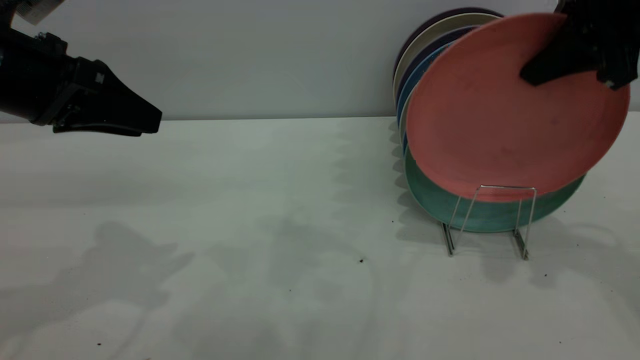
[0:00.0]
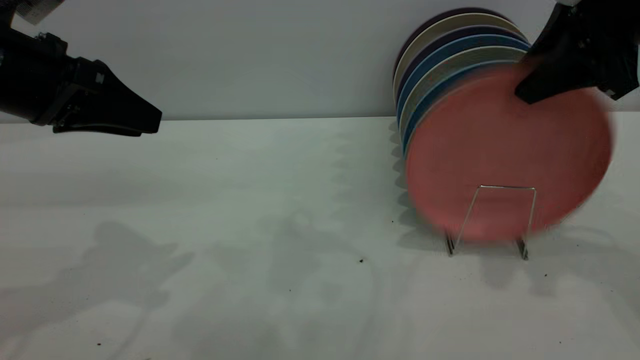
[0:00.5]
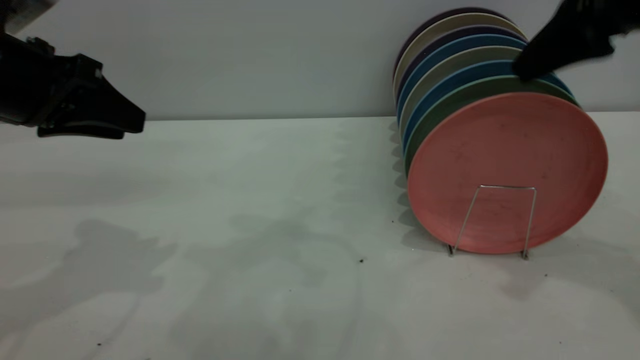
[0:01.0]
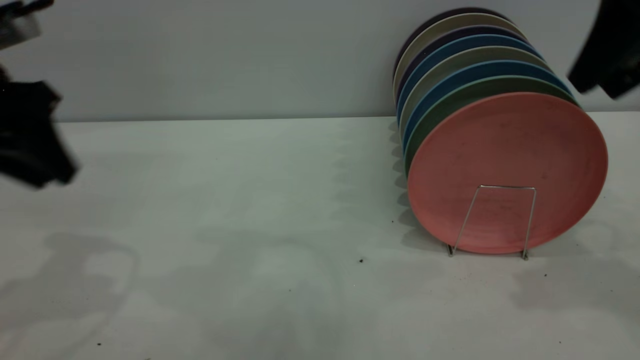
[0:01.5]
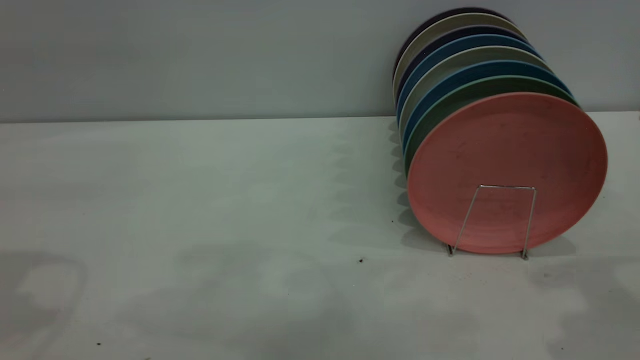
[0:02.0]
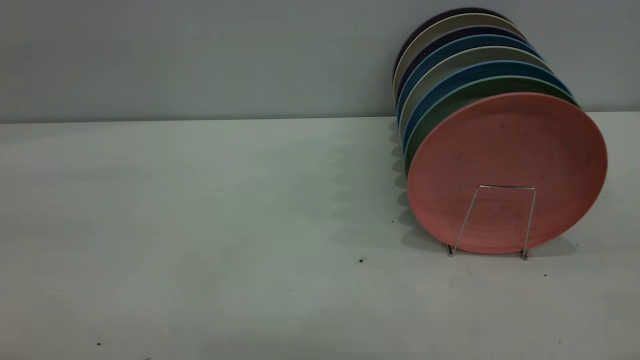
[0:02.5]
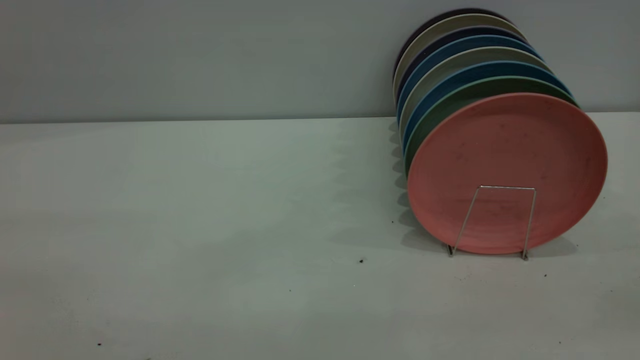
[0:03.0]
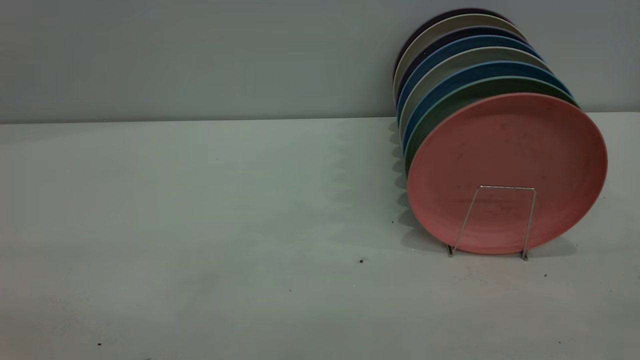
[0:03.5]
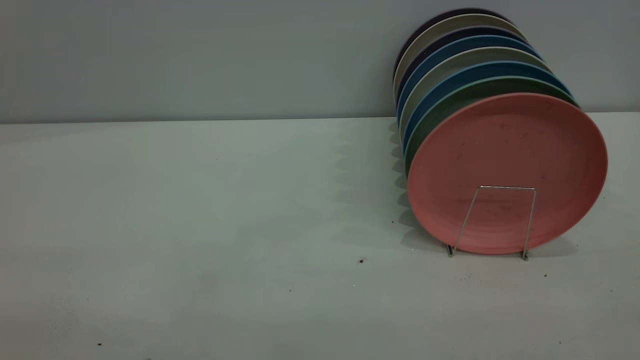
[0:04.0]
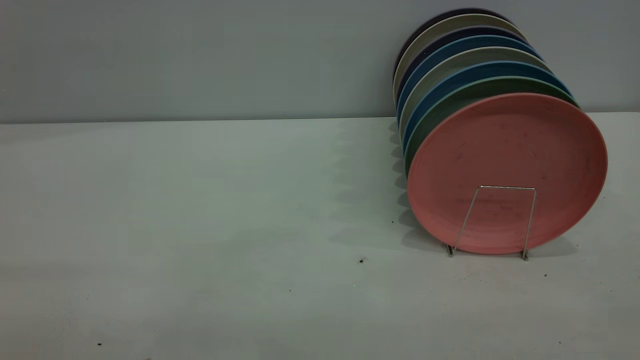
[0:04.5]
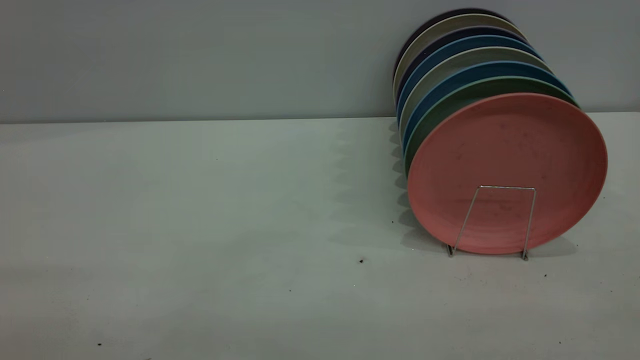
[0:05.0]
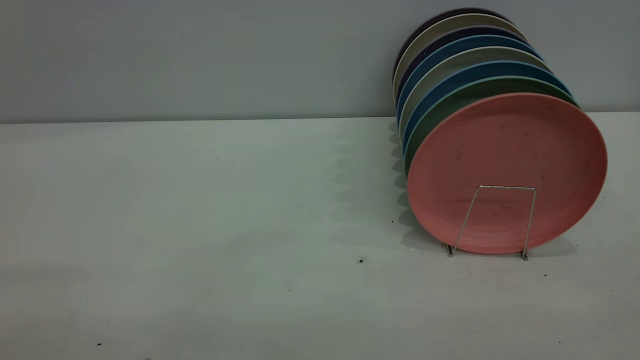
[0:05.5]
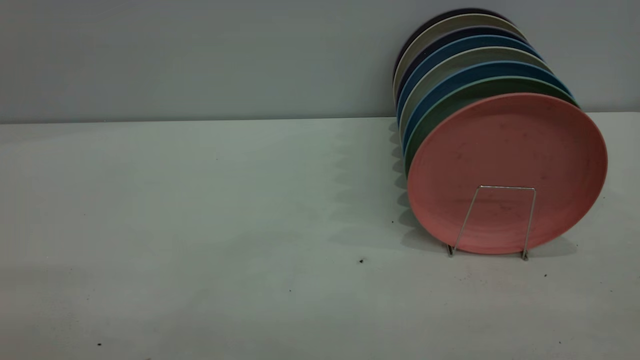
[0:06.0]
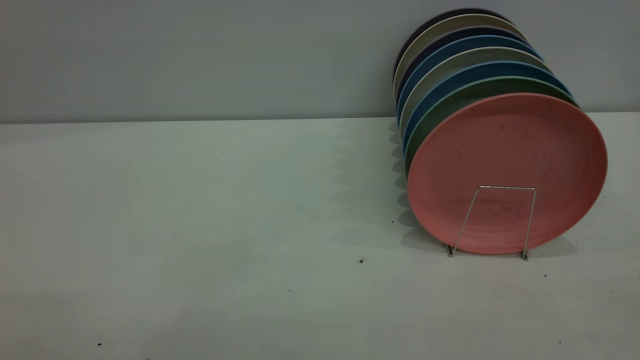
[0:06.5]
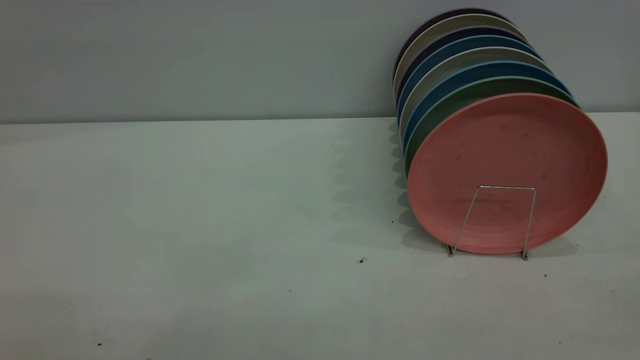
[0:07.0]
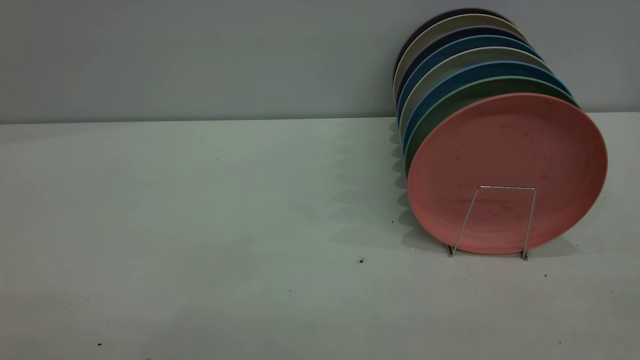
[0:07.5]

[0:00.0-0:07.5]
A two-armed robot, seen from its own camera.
Task of the whole recording: put the plate on the plate rack.
0:00.0 to 0:02.0: The right gripper travels backward by some 10 cm, and opens; the left gripper is displaced upward and to the left by some 10 cm.

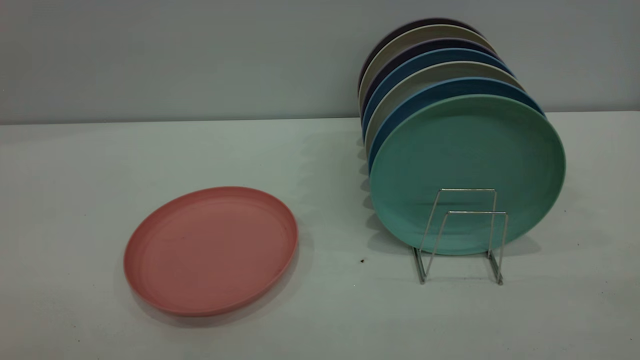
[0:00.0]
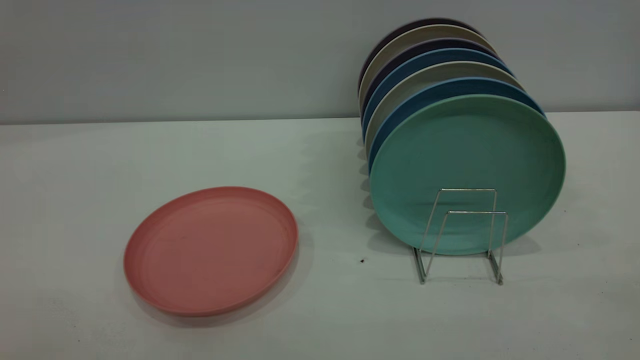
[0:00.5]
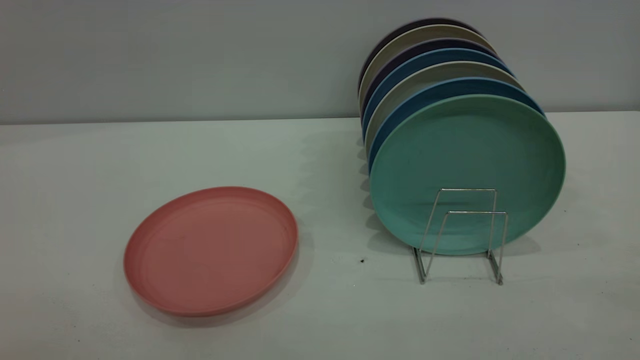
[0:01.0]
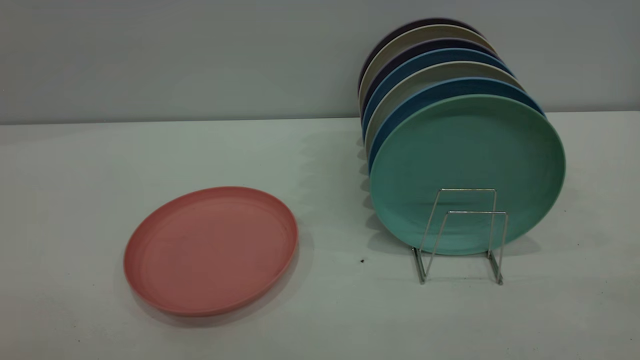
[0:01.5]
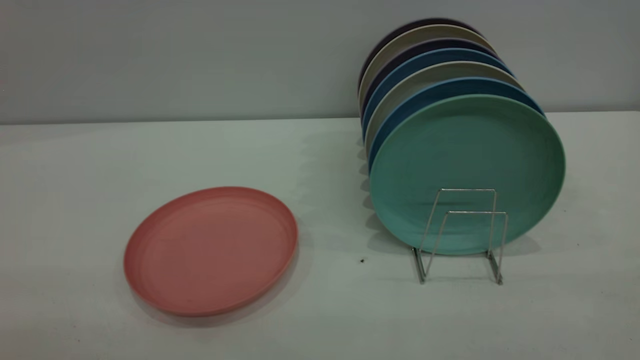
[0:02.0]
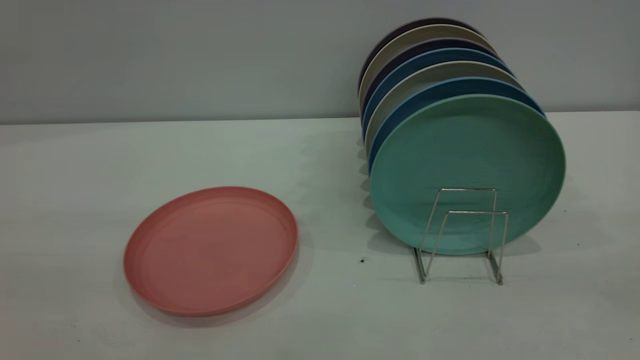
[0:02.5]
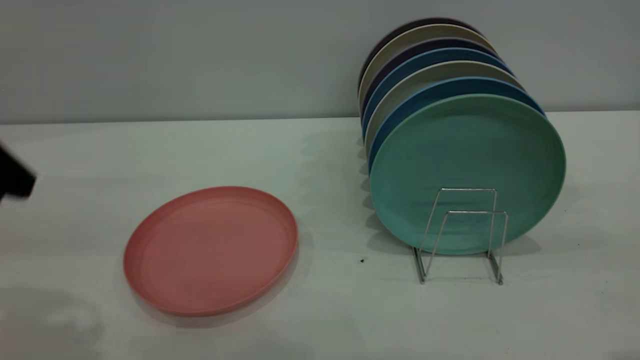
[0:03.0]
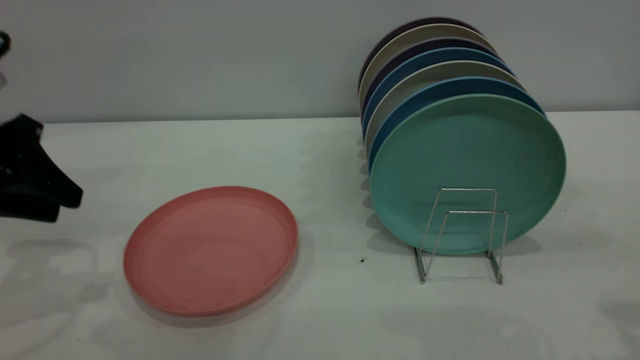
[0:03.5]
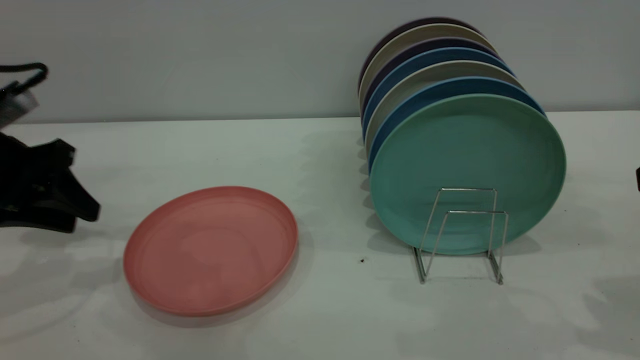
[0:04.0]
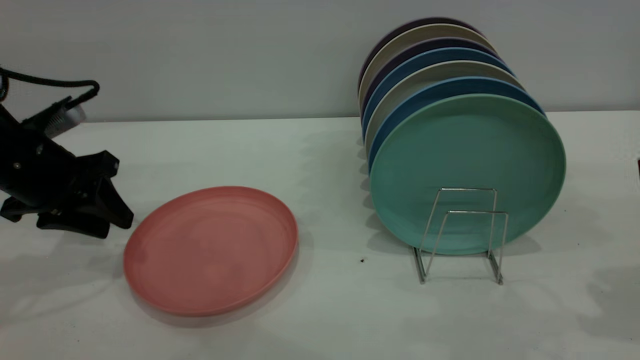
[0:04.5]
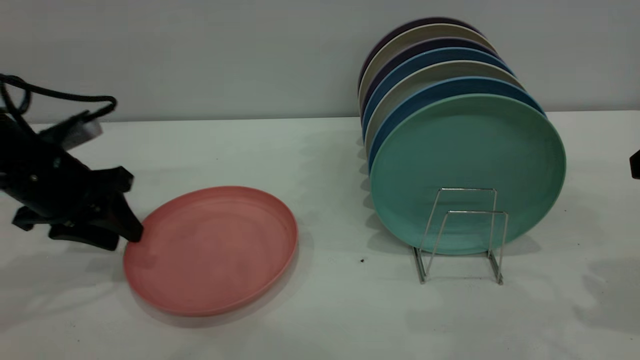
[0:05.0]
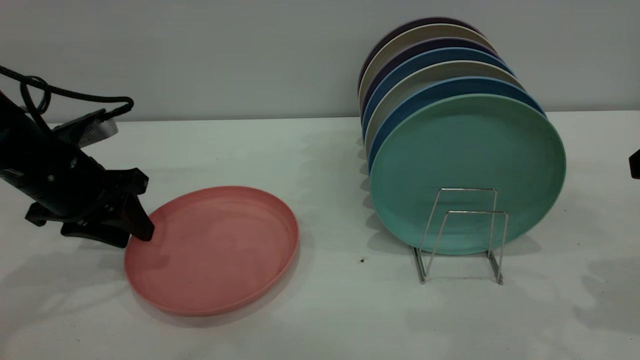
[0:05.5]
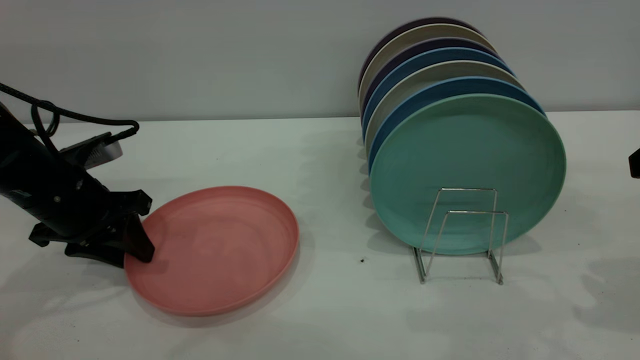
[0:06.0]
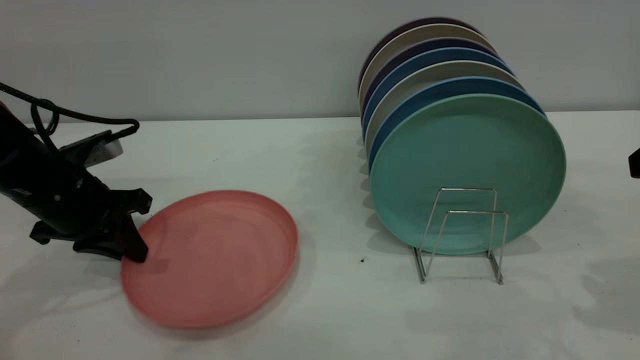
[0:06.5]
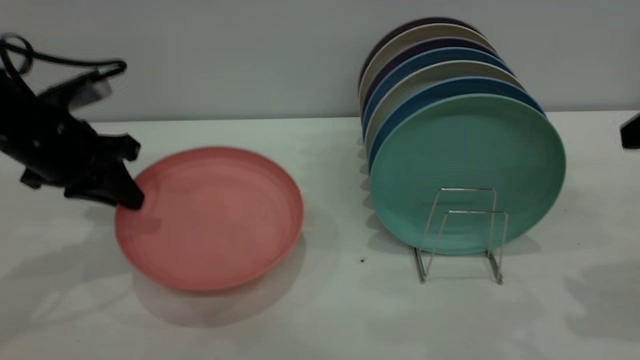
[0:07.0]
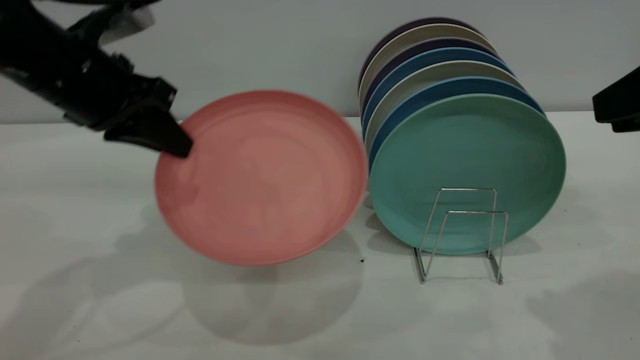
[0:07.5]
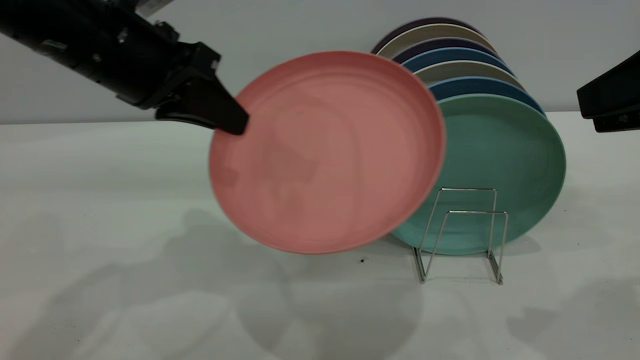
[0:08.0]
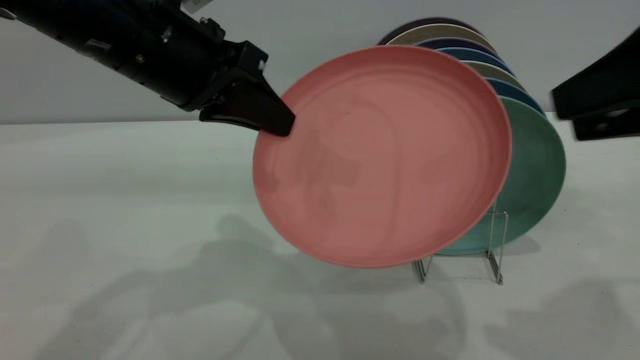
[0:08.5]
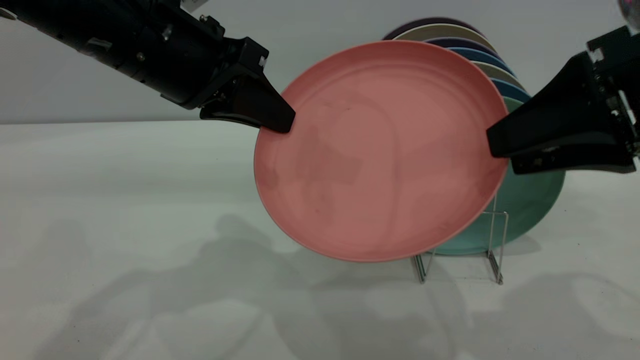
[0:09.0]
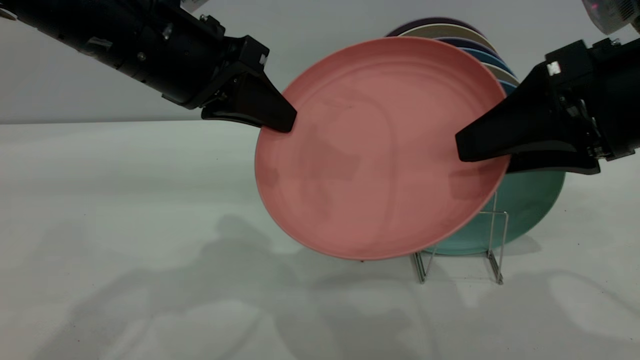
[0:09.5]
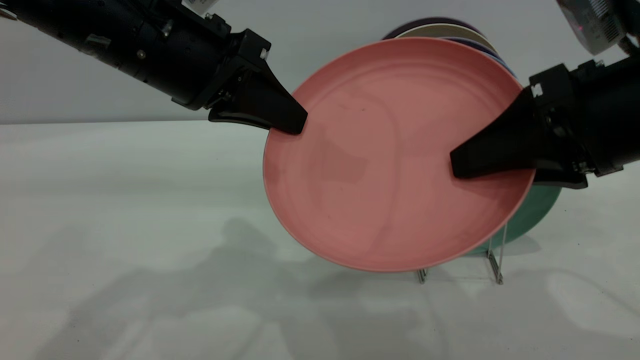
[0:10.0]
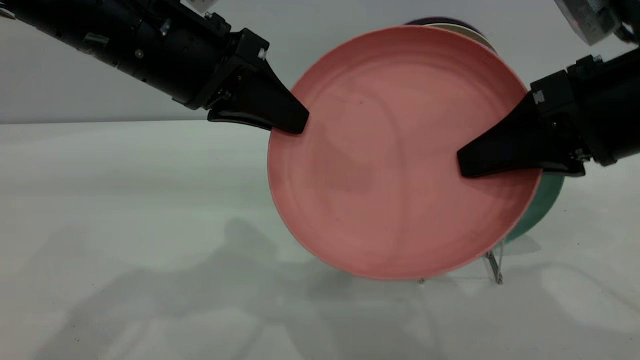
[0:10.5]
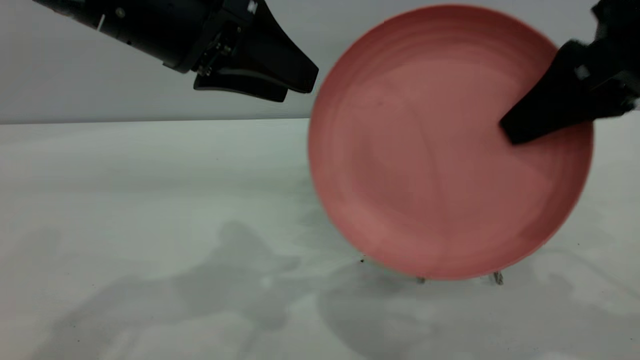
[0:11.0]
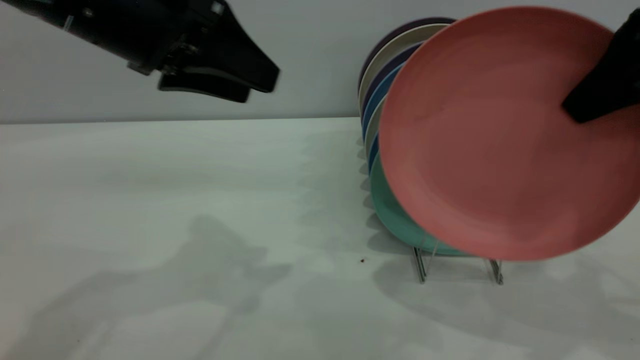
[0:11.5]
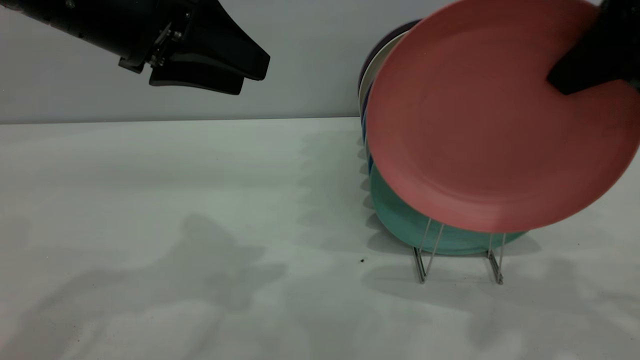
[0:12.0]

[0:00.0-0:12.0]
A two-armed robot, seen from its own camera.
Task of the whole recording: put the plate on the plate rack.
Step, 0:00.0 to 0:06.5: Pick up the plate with the left gripper.
Step, 0:07.0 to 0:11.0: Pass the plate from the left gripper to the right gripper.
0:02.0 to 0:04.0: The left gripper moves forward and downward, roughly 35 cm.
0:04.0 to 0:06.0: The left gripper moves downward, some 5 cm.
0:06.0 to 0:08.0: The left gripper goes approximately 20 cm upward and to the right, and closes. Meanwhile the right gripper is displaced upward by about 5 cm.
0:08.0 to 0:10.0: The right gripper heads to the left and downward, covering some 10 cm, and opens, then closes once more.
0:10.0 to 0:12.0: The left gripper ends up some 5 cm from where it was, and opens its fingers; the right gripper moves upward, about 10 cm, and closes.
